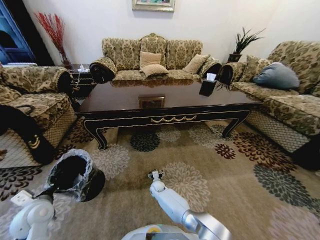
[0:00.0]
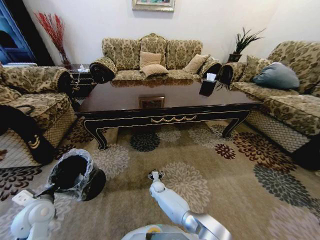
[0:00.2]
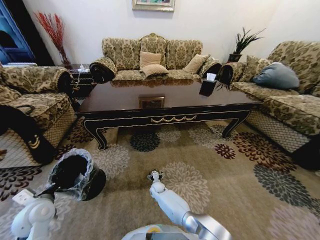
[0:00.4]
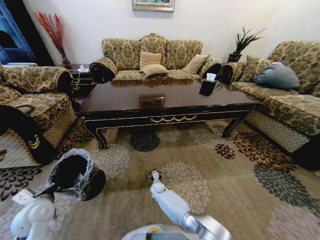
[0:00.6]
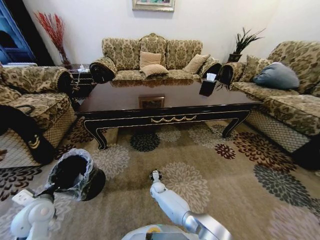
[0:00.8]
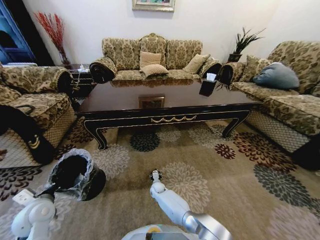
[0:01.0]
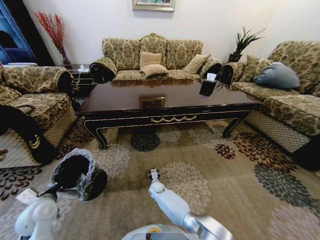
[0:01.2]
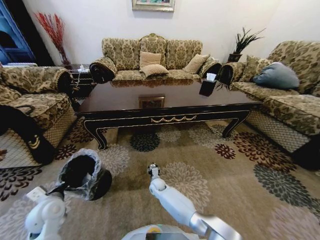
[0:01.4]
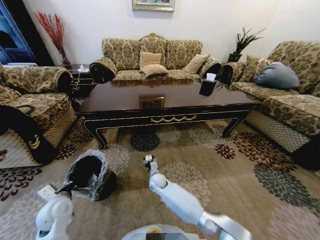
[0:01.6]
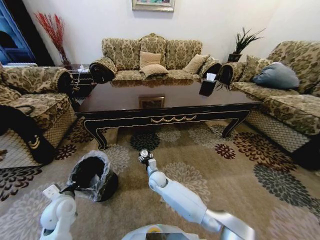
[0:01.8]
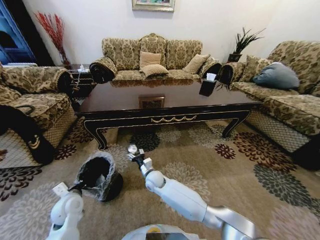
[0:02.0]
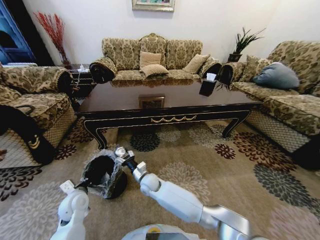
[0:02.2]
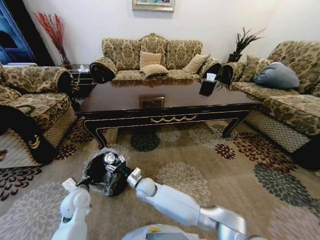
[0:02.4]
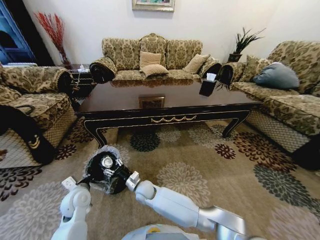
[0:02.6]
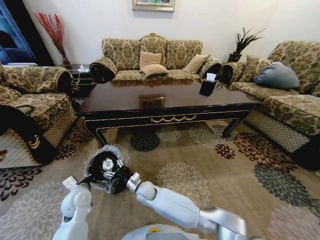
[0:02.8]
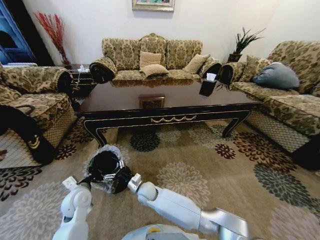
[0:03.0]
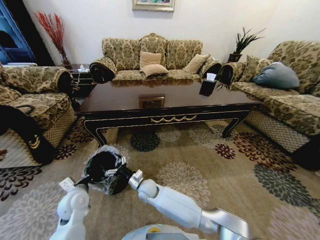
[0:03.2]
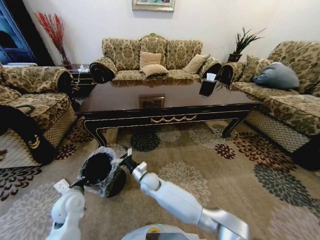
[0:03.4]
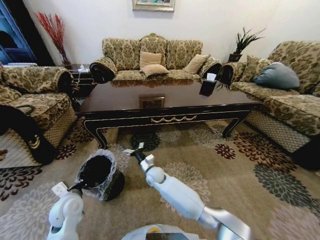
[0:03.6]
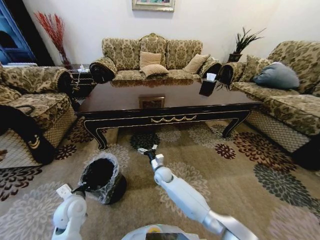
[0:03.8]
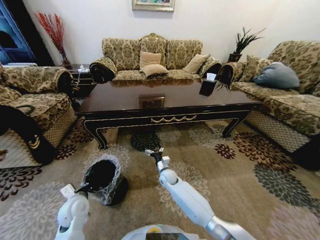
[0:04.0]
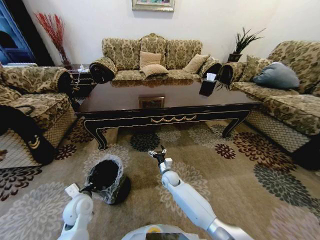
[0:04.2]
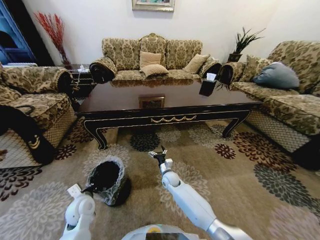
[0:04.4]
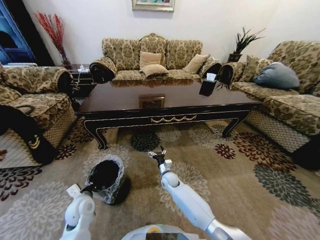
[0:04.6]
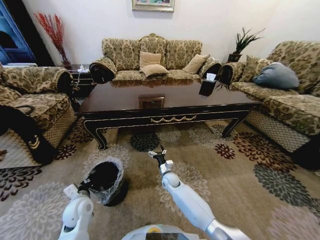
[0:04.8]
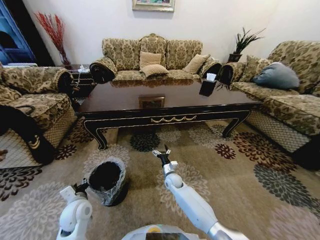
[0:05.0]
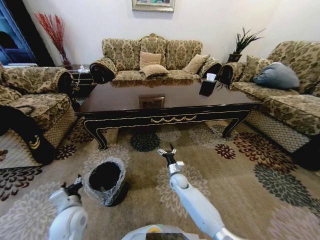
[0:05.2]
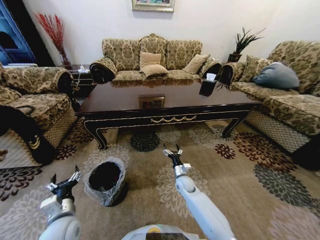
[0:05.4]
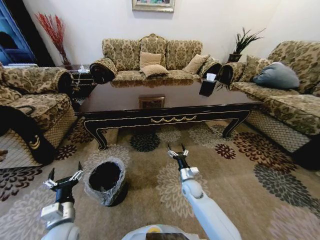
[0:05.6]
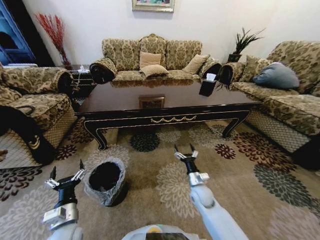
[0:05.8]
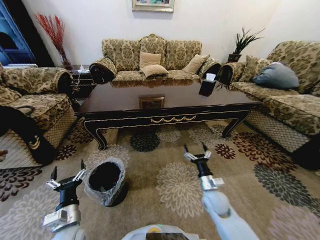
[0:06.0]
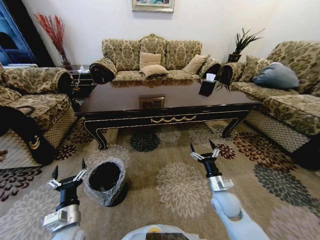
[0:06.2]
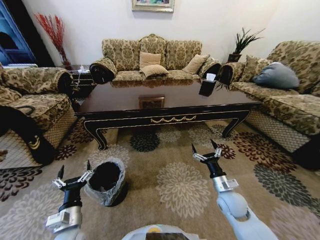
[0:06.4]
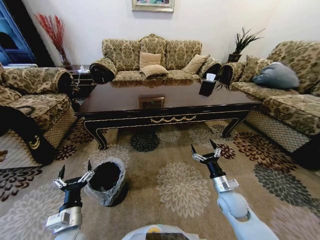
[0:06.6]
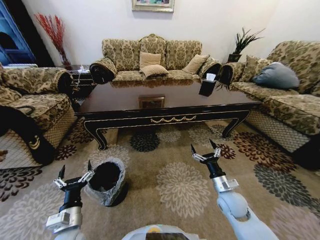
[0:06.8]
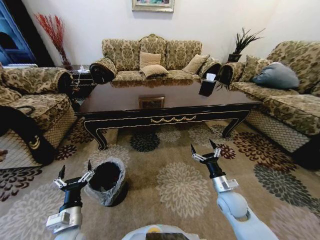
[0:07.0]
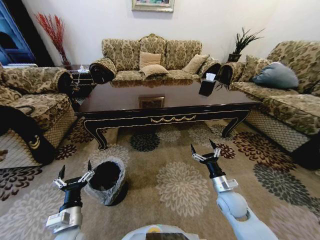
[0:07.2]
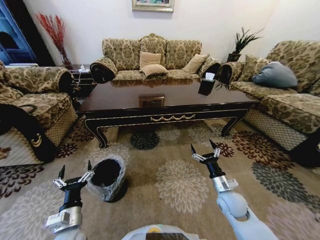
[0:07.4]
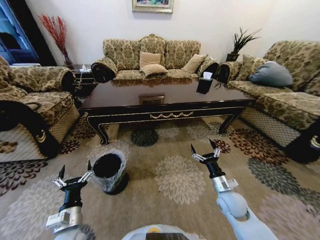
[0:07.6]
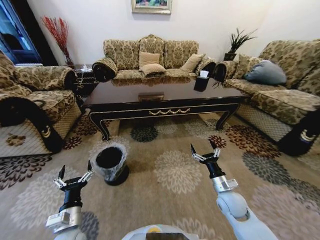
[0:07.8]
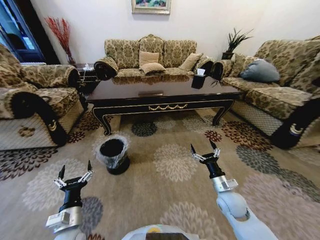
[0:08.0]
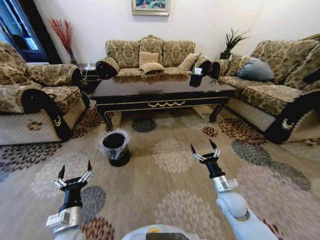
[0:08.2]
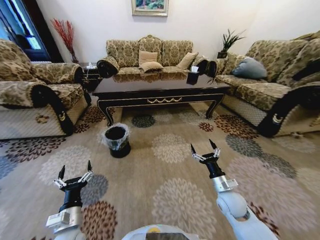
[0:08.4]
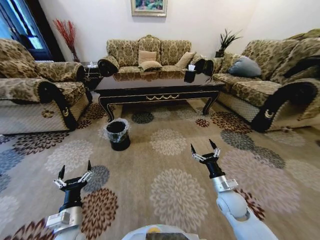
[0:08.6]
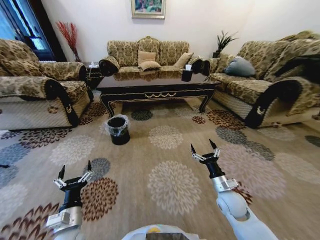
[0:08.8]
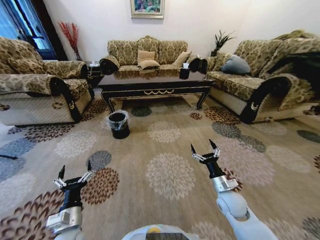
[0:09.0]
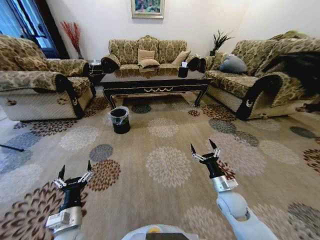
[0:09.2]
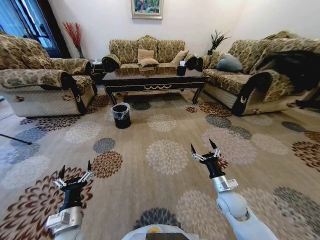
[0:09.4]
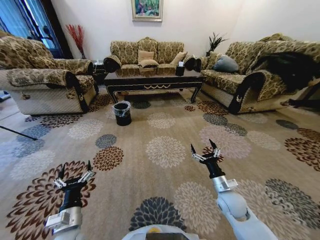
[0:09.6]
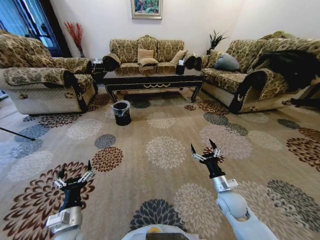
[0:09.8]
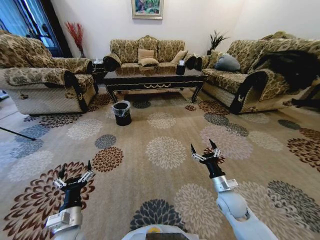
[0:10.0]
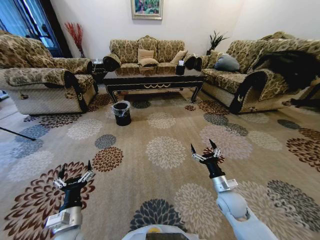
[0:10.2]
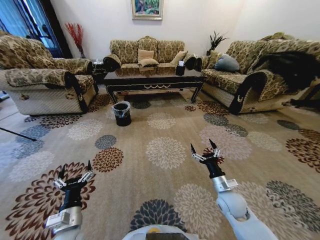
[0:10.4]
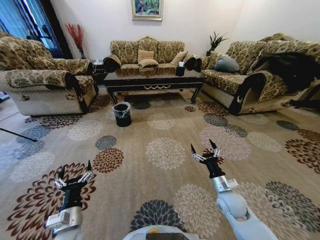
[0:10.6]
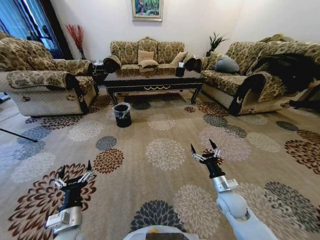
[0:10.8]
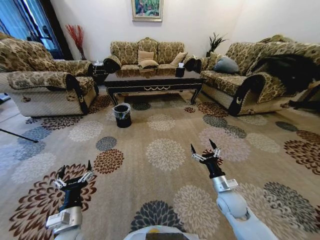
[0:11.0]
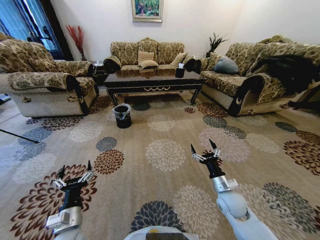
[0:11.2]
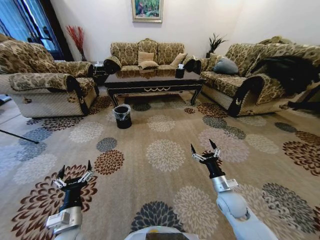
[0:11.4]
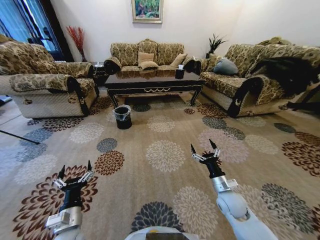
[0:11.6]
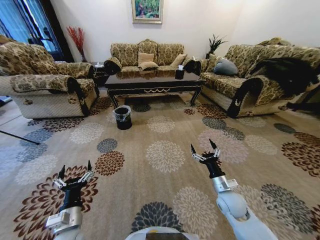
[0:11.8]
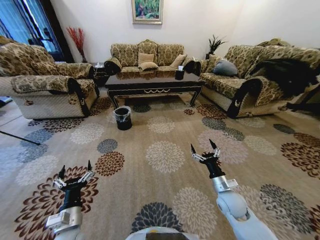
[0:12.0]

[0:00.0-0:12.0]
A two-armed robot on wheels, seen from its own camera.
Task of the whole recording: Move to the front of the table and pick up the trash from the floor, then place it into the trash bin.
0:00.0 to 0:01.6: The right gripper shifts some 10 cm upward, and closes its fingers; the left gripper travels to the right by about 5 cm.
0:01.6 to 0:03.0: The right gripper is displaced backward and to the left by some 10 cm, while the left gripper heads to the right, covering approximately 5 cm.
0:03.0 to 0:04.4: The right gripper heads to the right and forward, covering roughly 15 cm.
0:04.4 to 0:06.0: The right gripper is displaced to the right, backward and upward by about 20 cm. Meanwhile the left gripper goes approximately 10 cm backward, and opens its fingers.
0:06.0 to 0:07.6: The right gripper moves to the right, roughly 5 cm.

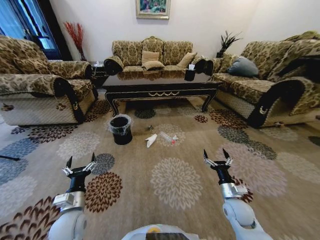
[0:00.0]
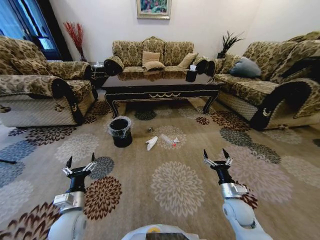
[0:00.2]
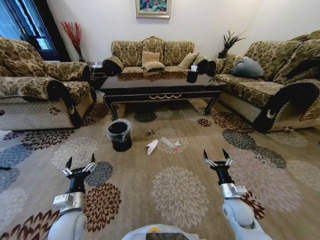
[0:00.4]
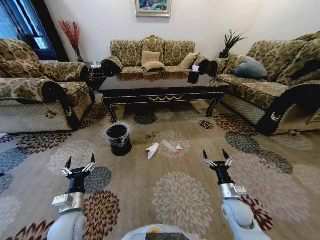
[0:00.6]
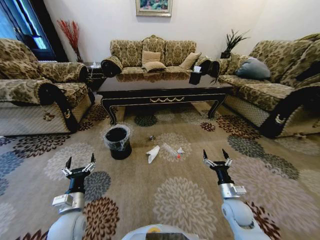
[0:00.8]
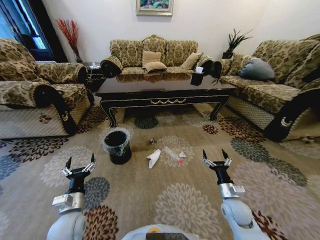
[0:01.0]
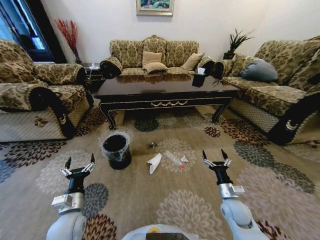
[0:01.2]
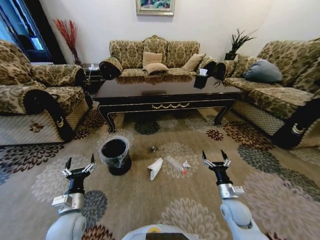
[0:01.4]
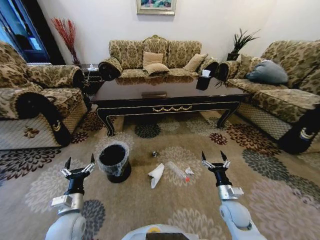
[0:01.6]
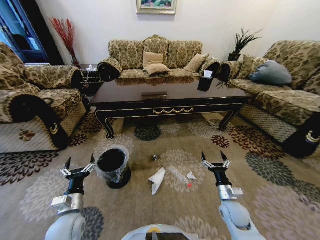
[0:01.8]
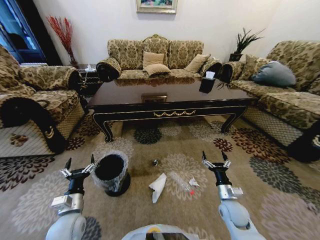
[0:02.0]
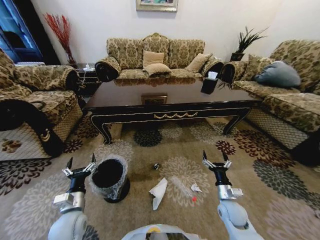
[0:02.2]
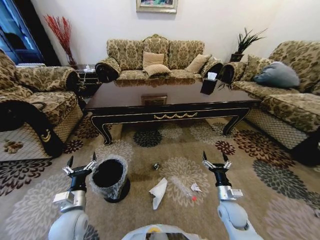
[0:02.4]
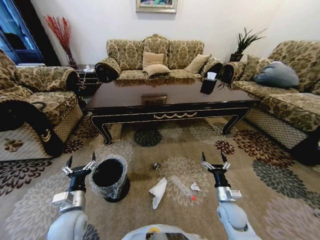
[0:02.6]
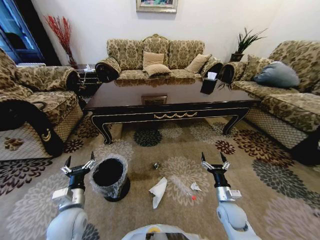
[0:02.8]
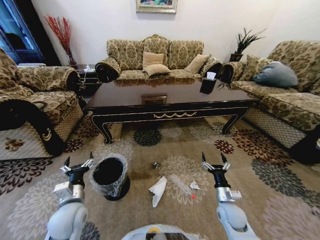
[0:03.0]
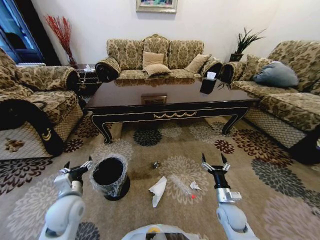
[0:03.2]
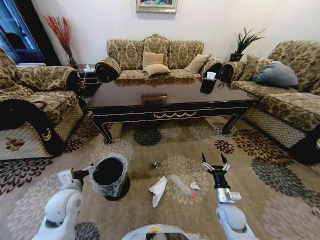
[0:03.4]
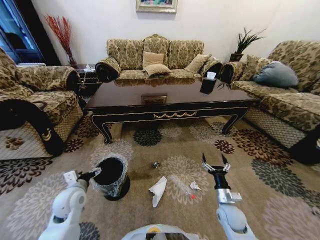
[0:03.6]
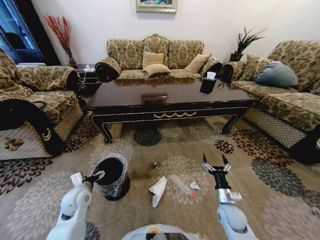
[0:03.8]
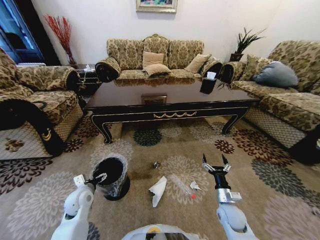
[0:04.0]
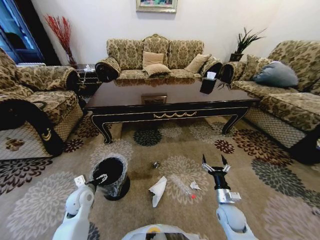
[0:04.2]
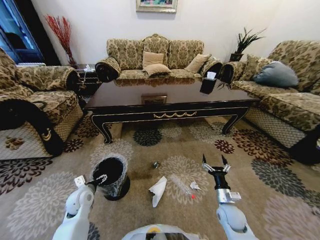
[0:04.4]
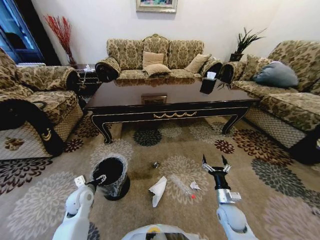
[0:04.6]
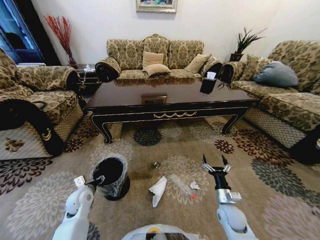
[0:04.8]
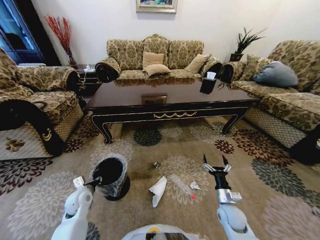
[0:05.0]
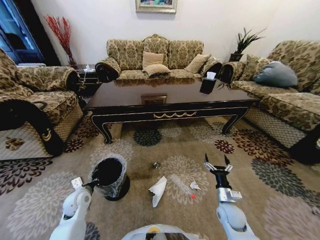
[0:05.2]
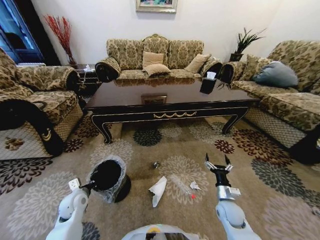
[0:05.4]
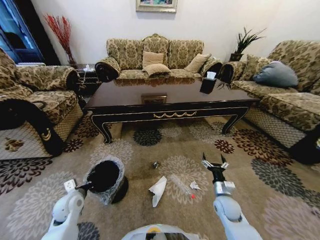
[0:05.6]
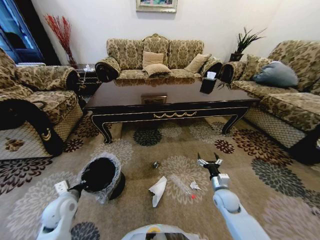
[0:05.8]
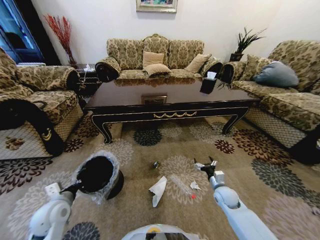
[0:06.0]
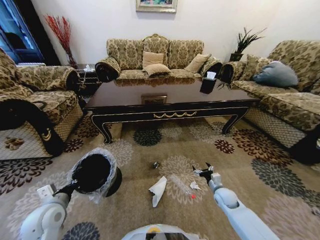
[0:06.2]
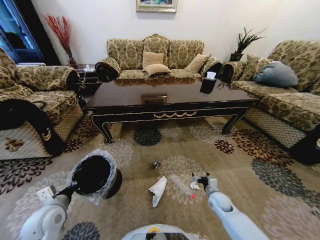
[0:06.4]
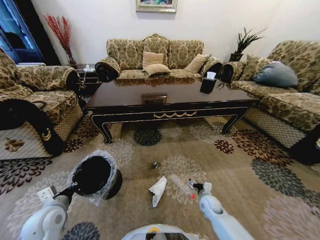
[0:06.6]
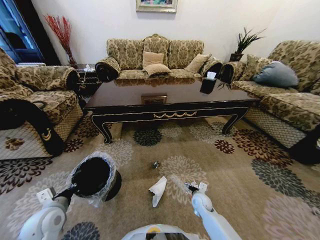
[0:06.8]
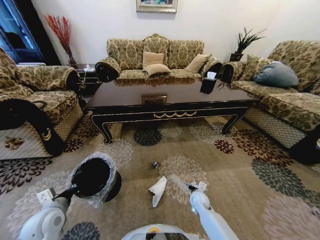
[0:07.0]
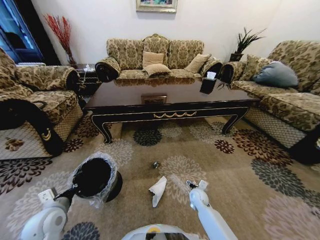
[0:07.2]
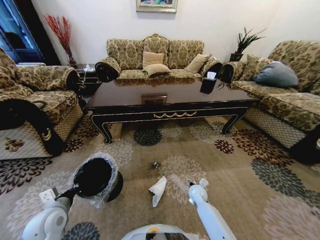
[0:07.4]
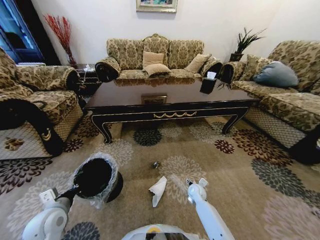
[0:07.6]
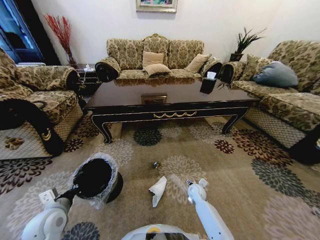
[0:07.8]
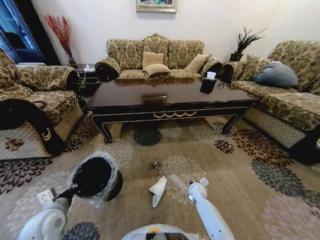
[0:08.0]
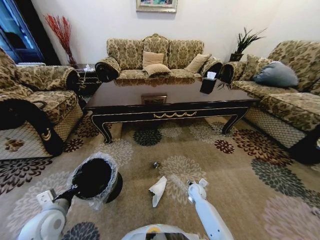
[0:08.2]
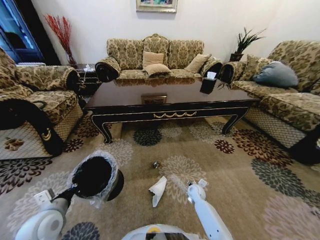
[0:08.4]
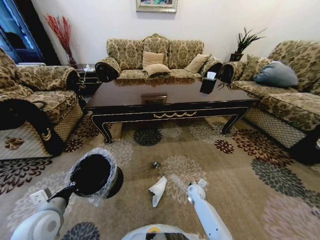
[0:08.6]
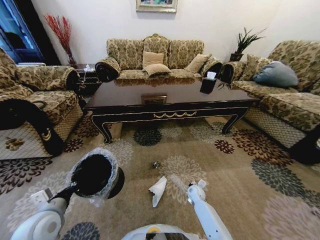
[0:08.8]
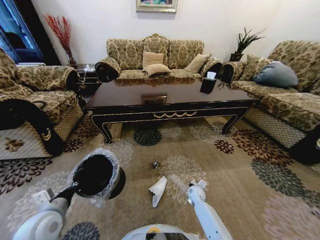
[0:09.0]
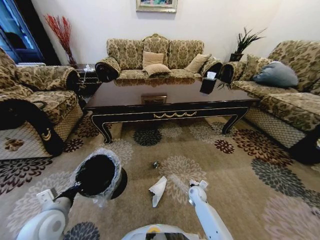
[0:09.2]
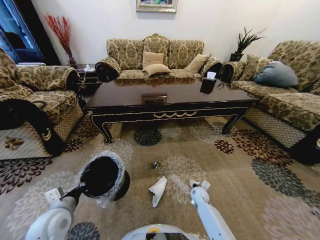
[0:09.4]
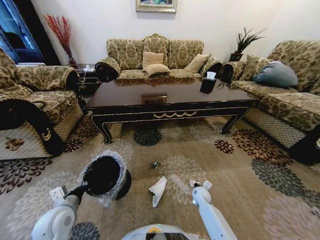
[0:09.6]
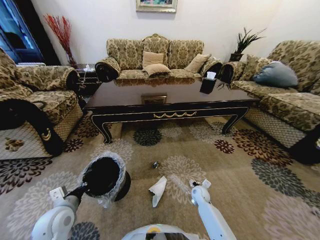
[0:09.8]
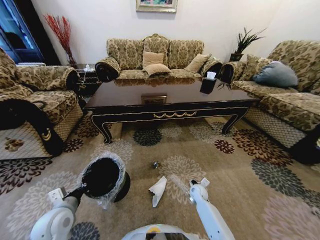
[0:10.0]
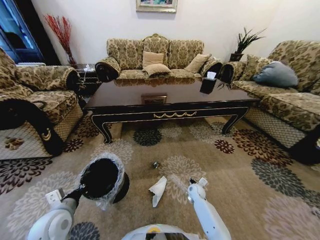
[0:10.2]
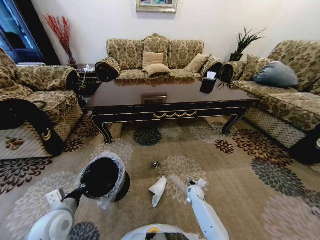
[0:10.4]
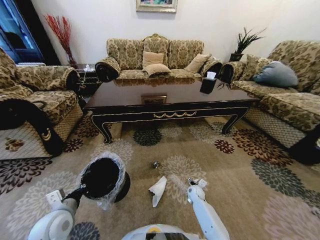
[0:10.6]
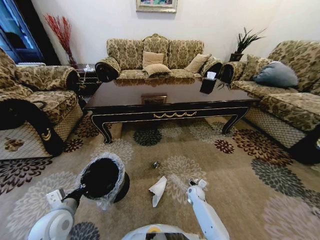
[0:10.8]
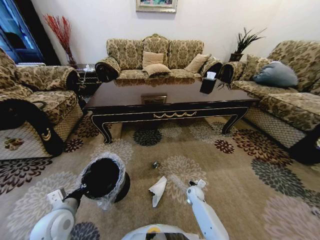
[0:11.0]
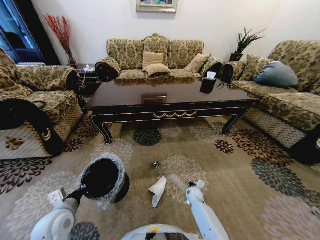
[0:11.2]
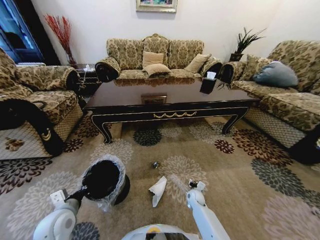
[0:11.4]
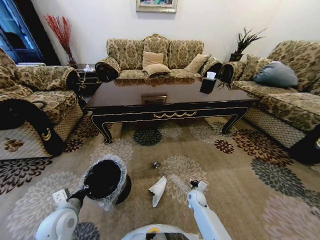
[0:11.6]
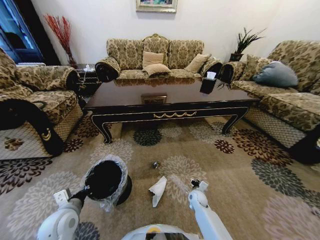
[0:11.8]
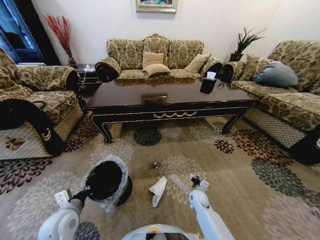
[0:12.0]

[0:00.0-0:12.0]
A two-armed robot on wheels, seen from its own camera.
Task of the whole recording: Move to the front of the table and pick up the trash from the floor, then place it into the trash bin.
0:03.0 to 0:04.4: The left gripper travels downward and forward by some 10 cm.
0:04.4 to 0:06.0: The left gripper heads upward and backward, covering roughly 10 cm, and closes; the right gripper heads forward, covering approximately 10 cm.
0:06.0 to 0:07.6: The right gripper is displaced to the left and downward by some 15 cm.
0:07.6 to 0:09.0: The right gripper closes its fingers.
0:09.0 to 0:10.4: The right gripper opens its fingers.
0:10.4 to 0:12.0: The right gripper shifts by about 5 cm, and closes.
